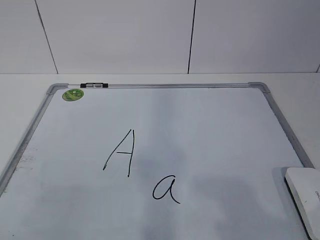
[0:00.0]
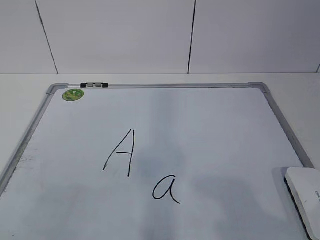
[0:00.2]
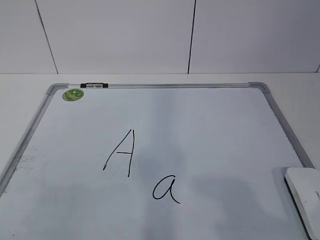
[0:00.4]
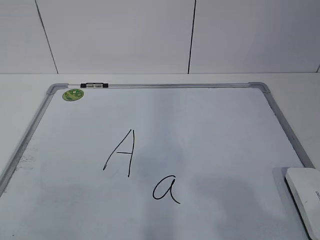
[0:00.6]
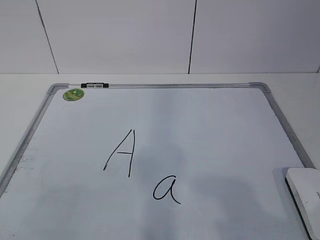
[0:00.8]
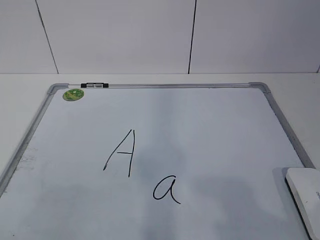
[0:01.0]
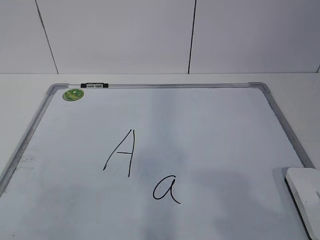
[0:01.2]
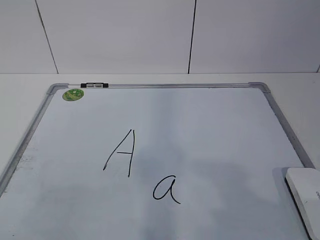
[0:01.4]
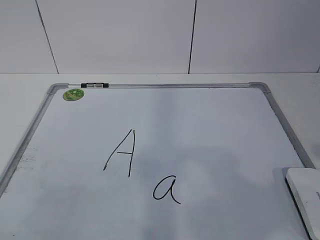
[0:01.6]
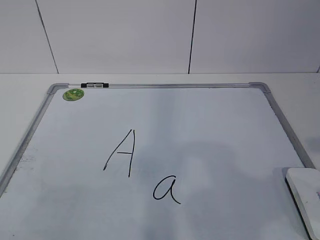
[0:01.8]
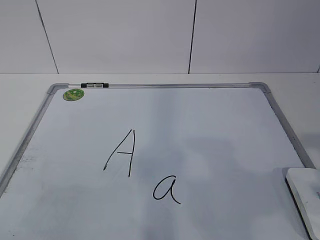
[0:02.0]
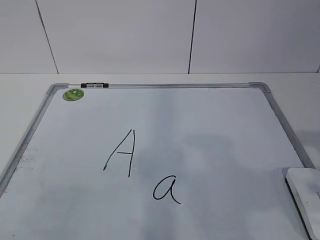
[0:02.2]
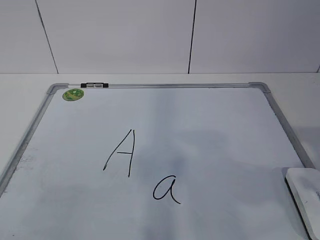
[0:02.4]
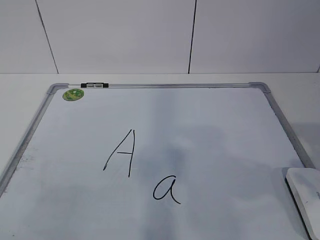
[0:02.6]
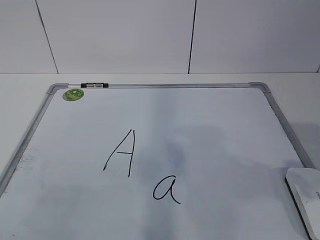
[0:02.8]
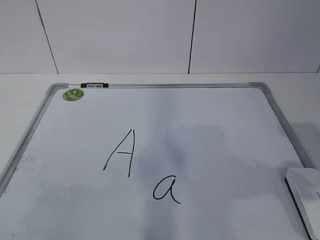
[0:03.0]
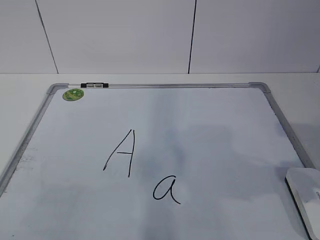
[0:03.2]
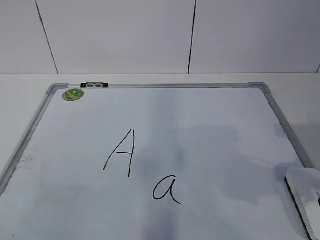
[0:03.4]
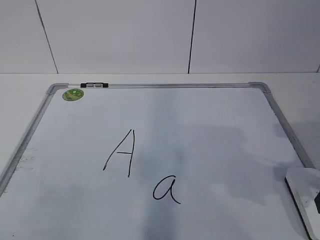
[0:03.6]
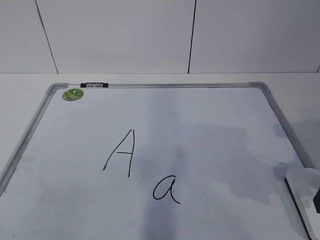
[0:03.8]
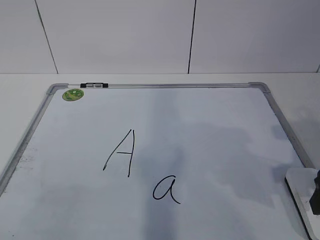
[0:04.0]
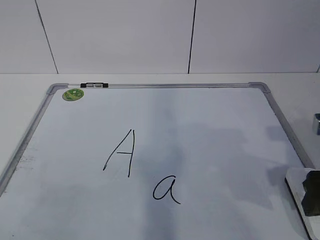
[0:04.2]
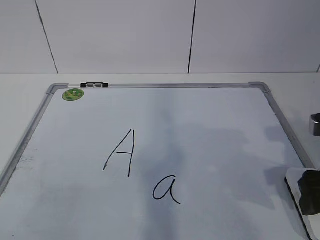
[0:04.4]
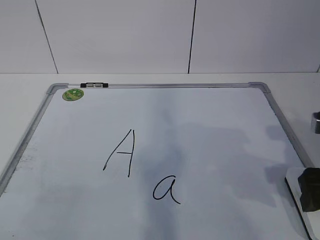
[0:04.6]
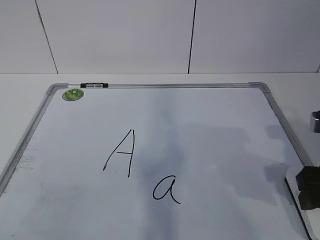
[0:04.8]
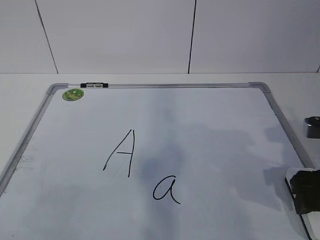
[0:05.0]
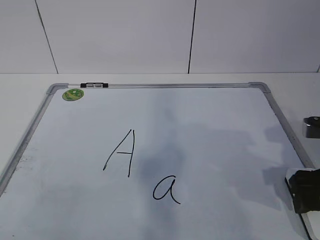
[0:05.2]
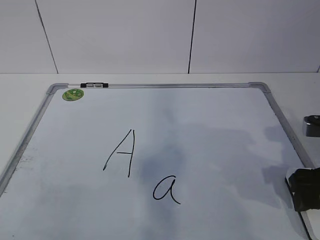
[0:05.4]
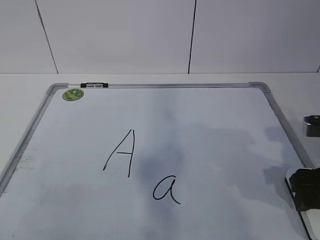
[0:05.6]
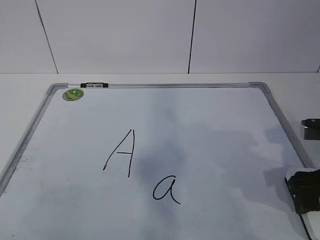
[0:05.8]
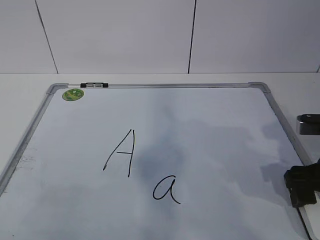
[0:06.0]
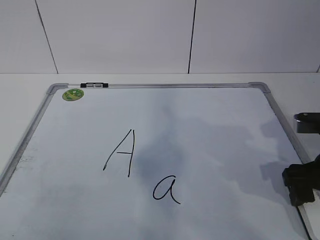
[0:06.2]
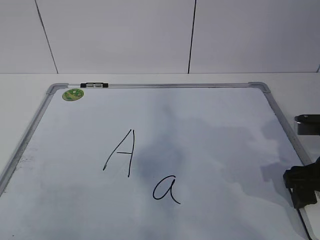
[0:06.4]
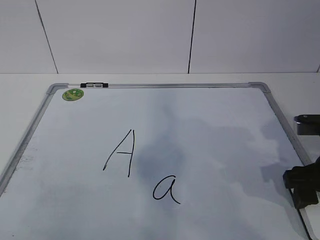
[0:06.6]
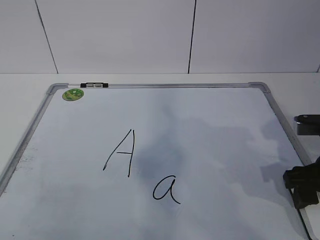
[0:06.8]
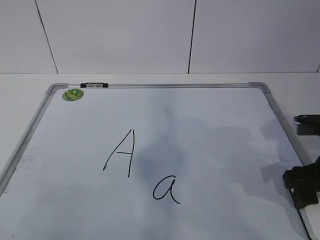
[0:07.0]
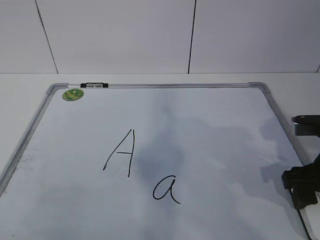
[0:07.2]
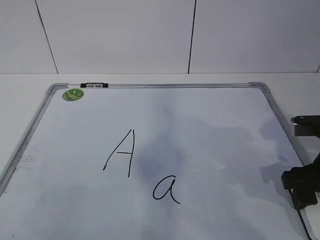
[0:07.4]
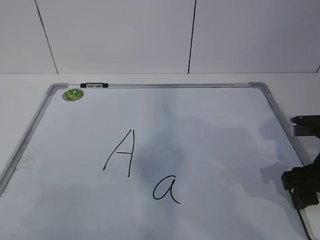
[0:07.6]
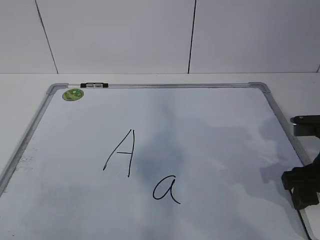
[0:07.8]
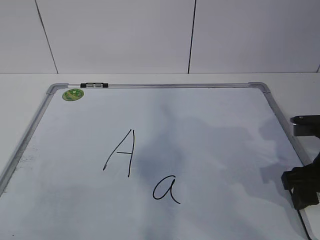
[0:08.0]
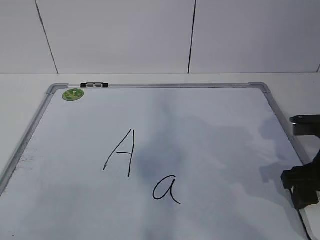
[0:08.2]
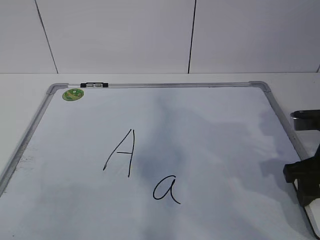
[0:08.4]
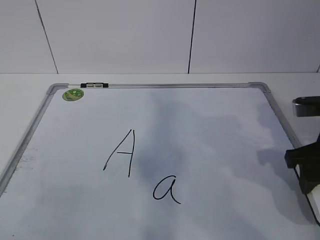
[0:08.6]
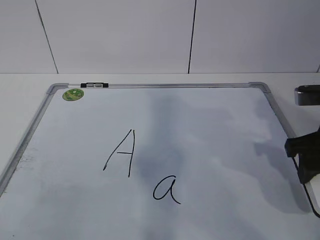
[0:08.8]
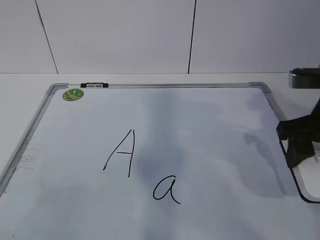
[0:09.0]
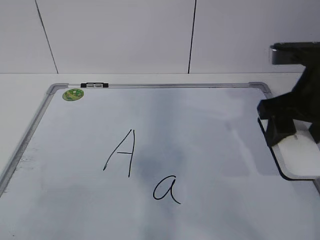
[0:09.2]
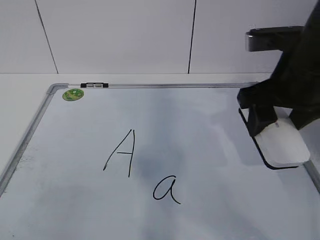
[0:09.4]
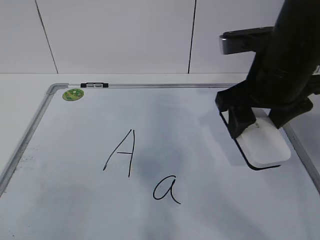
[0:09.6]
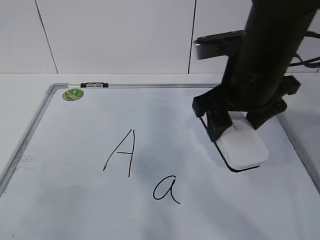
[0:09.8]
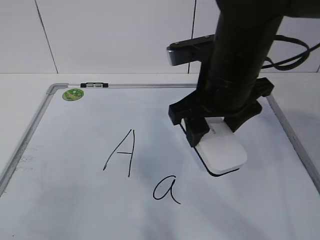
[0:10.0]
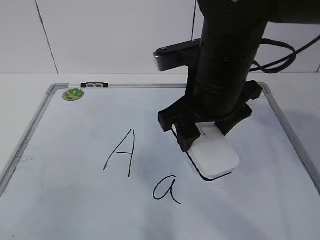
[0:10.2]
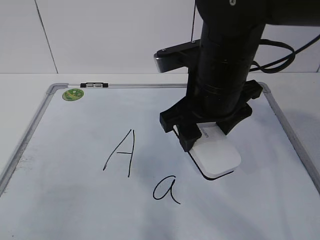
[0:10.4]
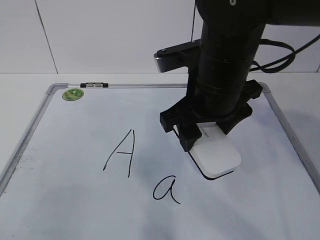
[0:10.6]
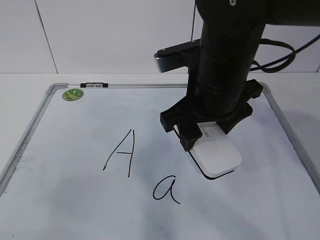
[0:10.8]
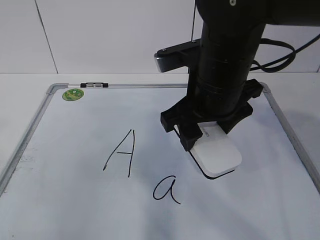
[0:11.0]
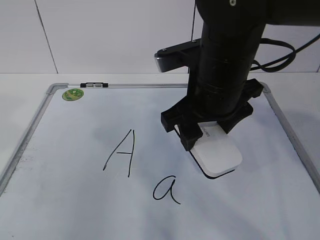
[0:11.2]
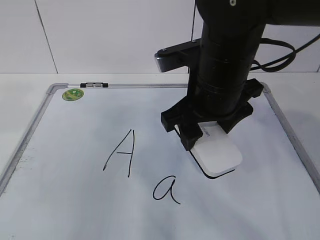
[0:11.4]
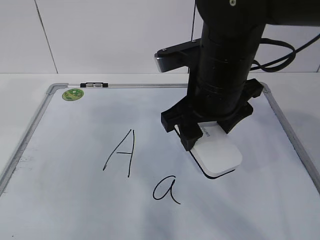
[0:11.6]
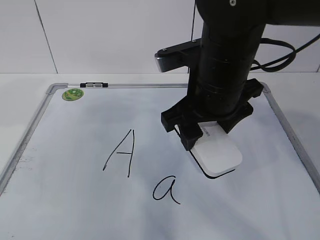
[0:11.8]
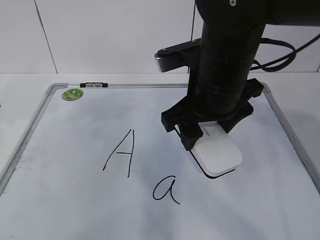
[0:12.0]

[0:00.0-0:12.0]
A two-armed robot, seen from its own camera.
Task of the whole recording: pick up the eraser on the blackboard and erase the letter "a".
Step, 0:00.0 to 0:06.8: Grab the eraser with your right hand.
Step, 0:07.0 to 0:12.0: Hold the drawing board steady with your left hand.
0:03.0 to 0:04.4: The right gripper shifts roughly 10 cm downward and forward.
0:04.4 to 0:06.0: There are only small adjustments of the grippers.
0:06.0 to 0:07.6: The right gripper closes up.
0:07.6 to 0:09.0: The right gripper is displaced upward by about 5 cm.
0:09.0 to 0:10.4: The right gripper travels to the left by approximately 15 cm.
0:10.4 to 0:12.0: The left gripper heads forward, covering about 30 cm, and opens up.

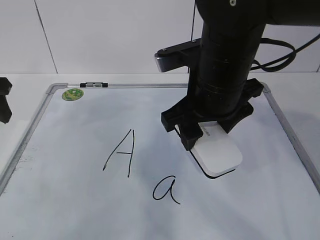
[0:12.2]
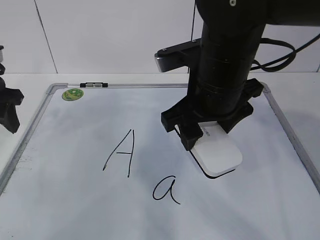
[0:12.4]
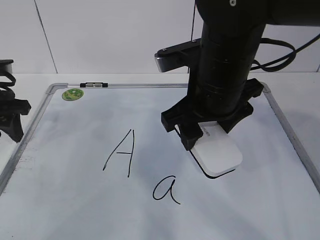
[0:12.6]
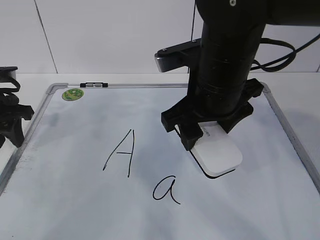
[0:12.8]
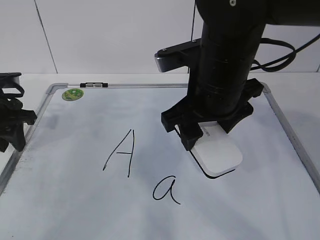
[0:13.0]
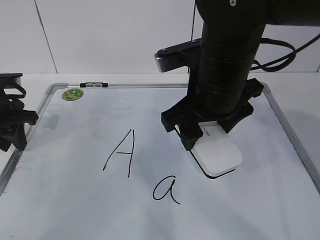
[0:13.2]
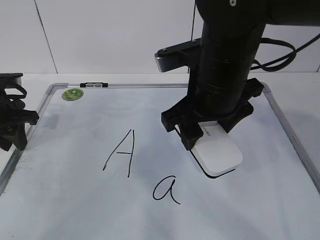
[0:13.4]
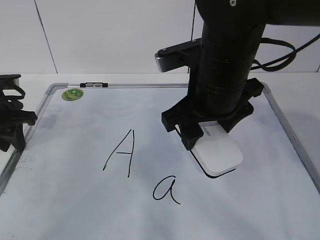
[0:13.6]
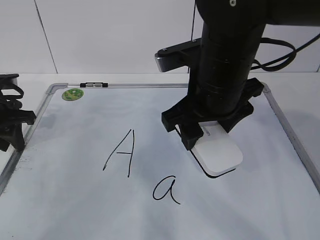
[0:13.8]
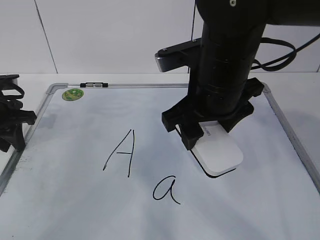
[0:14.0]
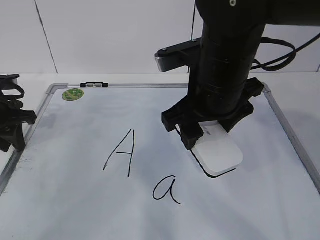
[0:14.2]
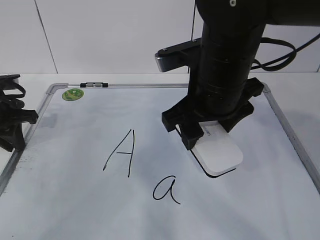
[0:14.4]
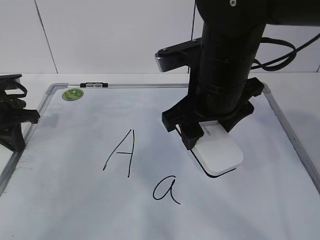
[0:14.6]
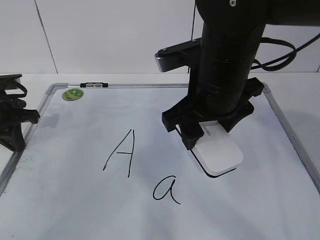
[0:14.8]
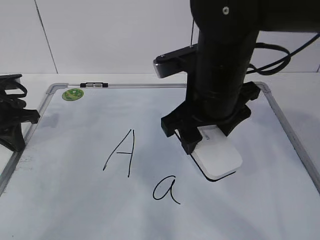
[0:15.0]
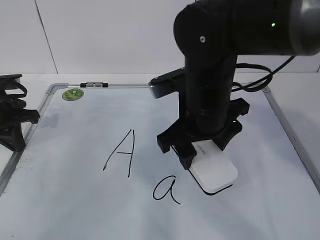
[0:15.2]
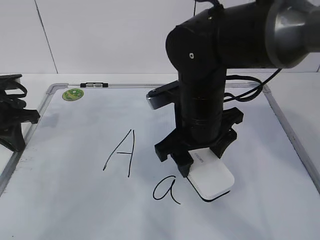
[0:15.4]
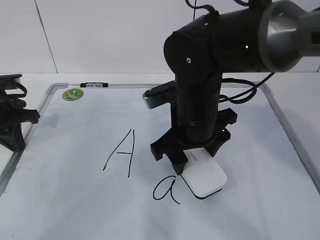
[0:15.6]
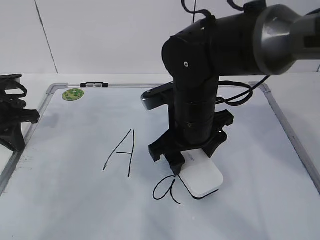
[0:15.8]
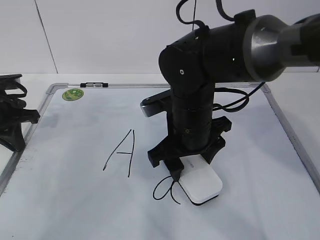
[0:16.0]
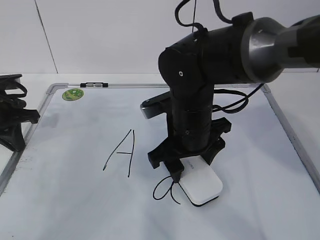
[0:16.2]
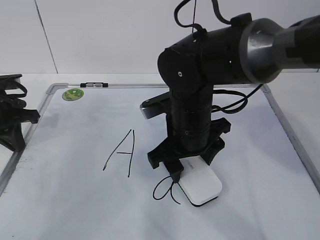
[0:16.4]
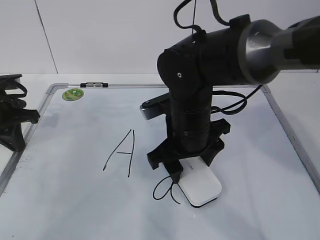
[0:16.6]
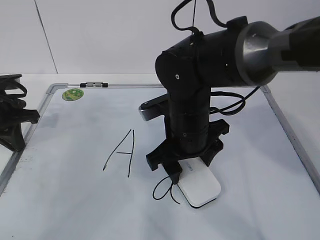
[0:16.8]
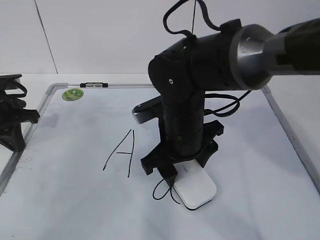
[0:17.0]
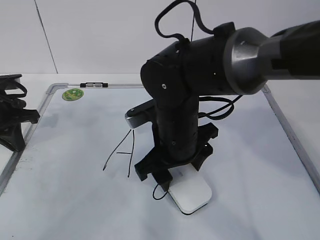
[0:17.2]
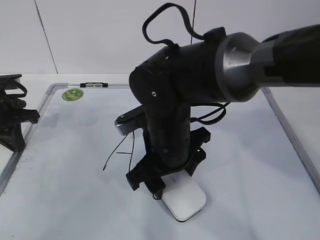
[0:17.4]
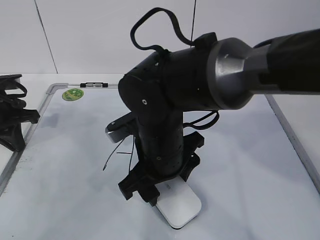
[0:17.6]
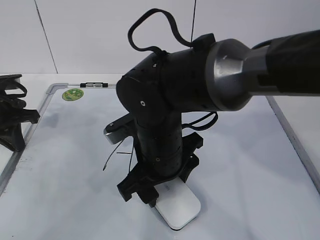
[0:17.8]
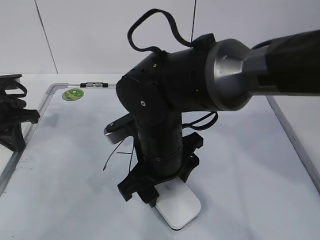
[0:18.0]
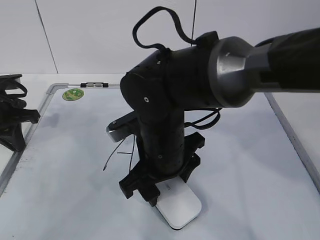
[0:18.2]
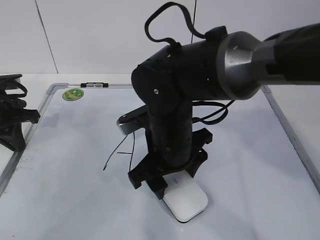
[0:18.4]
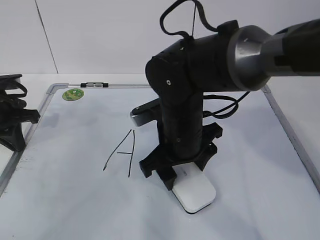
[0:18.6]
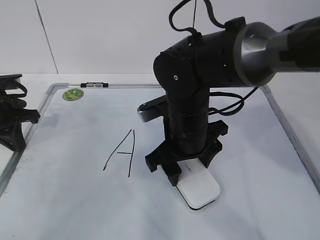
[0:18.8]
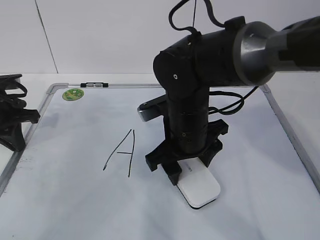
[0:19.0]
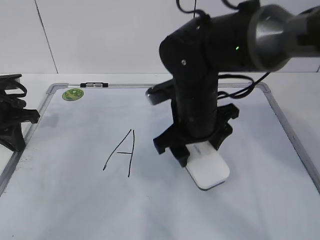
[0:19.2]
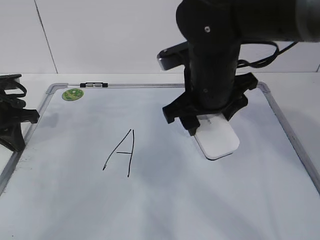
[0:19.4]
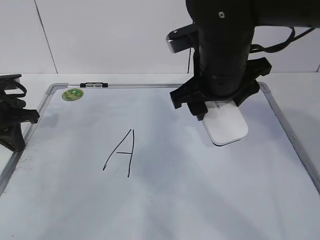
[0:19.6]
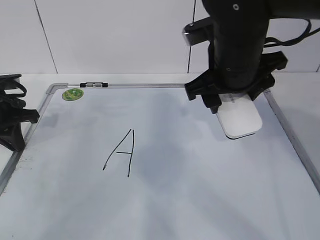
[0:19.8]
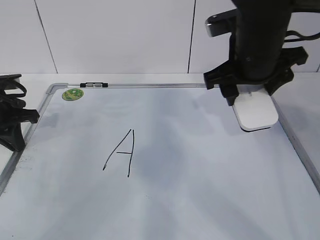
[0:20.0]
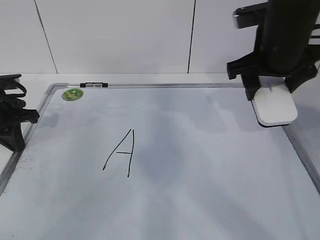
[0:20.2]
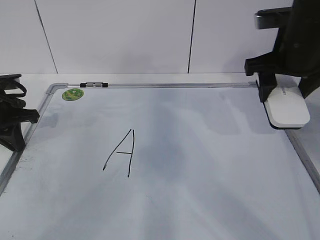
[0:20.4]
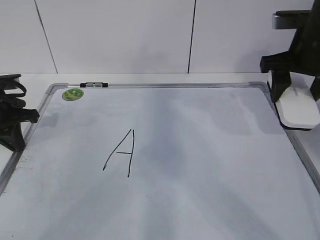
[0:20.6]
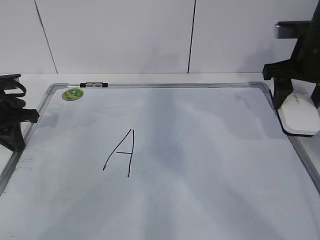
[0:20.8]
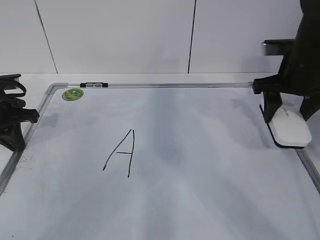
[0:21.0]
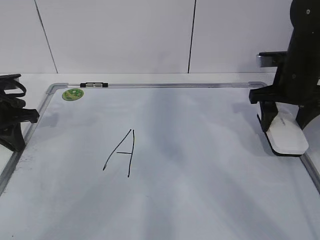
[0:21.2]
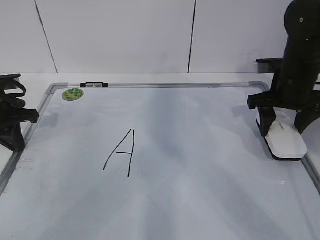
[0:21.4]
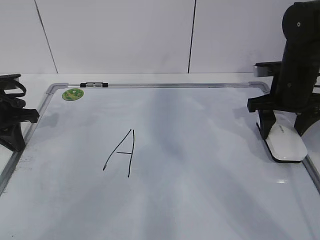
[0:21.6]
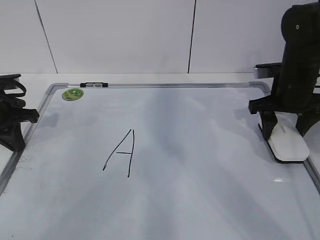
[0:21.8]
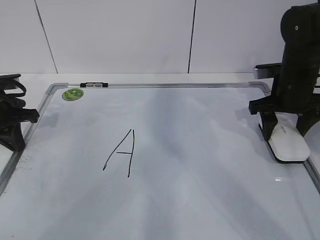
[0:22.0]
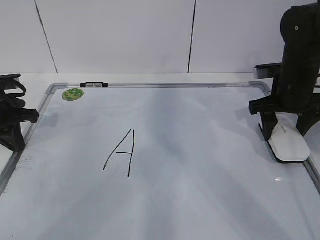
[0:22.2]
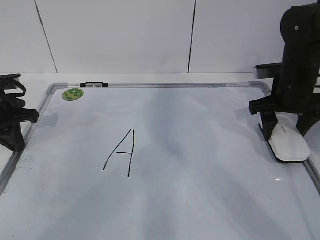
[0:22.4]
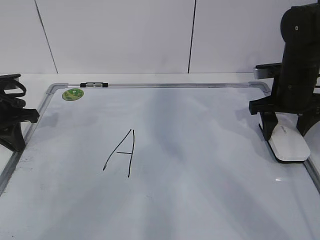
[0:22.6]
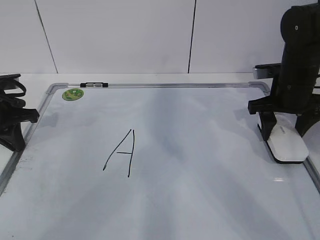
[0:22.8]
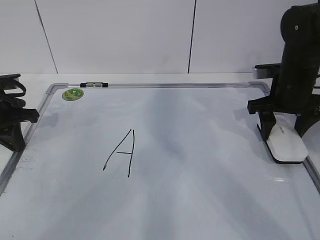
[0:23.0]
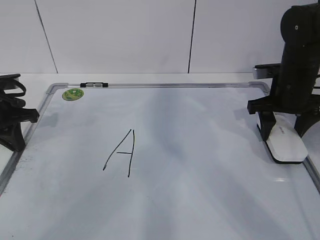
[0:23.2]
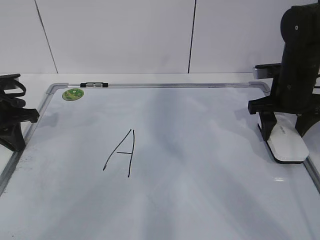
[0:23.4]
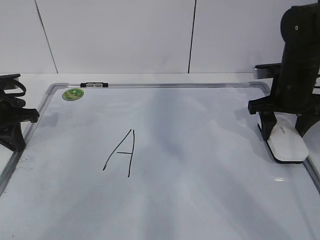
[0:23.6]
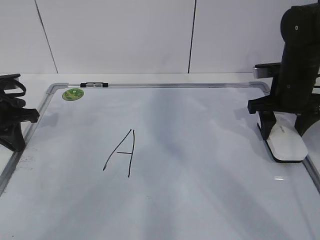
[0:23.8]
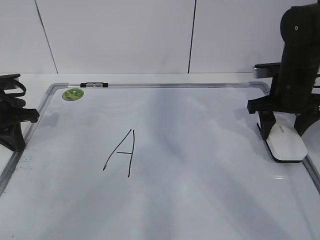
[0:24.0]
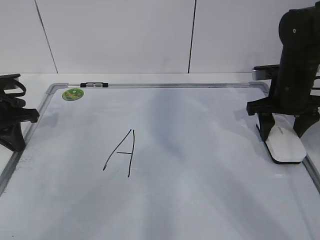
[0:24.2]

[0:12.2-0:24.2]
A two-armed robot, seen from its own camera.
Task of the whole recording: pick up the eraser on the blackboard and erase the letter "a".
Step, 0:12.2 to 0:15.8: Erase the letter a with your right hand.
Step, 0:16.0 to 0:20.6: Put down the eraser with your right hand.
0:12.2 to 0:13.8: The left gripper moves downward, some 10 cm, and closes its fingers.
0:13.8 to 0:15.2: The left gripper closes up.
0:15.2 to 0:16.6: The right gripper travels downward by some 5 cm.
0:16.6 to 0:18.2: The right gripper shifts by about 5 cm.
0:18.2 to 0:19.8: The right gripper heads upward and to the right, covering about 15 cm.
0:19.8 to 0:21.2: The right gripper heads to the right, forward and downward, covering about 15 cm.
0:21.2 to 0:22.6: The grippers stay close to where they were, moving slightly.
0:22.6 to 0:24.2: The two grippers keep their place.
